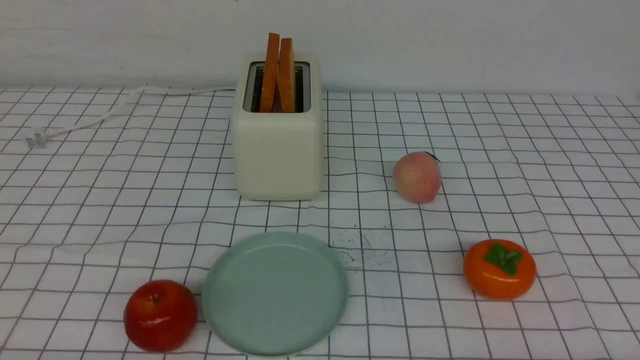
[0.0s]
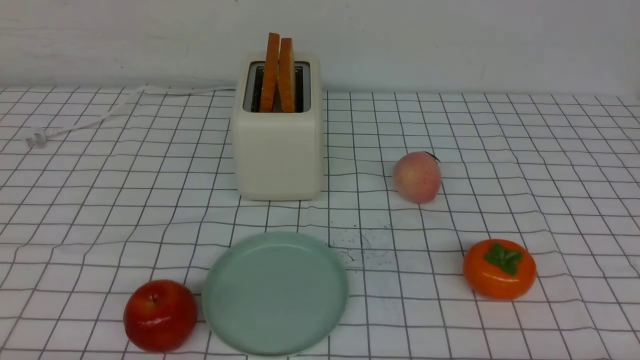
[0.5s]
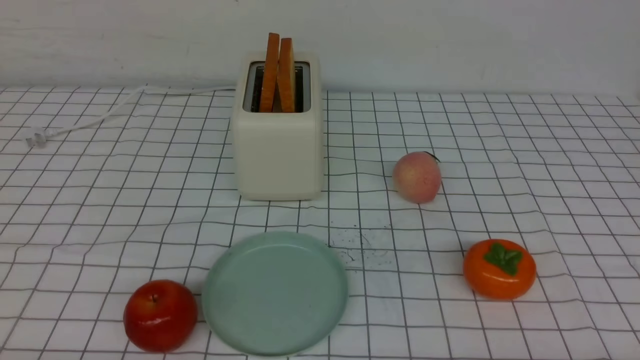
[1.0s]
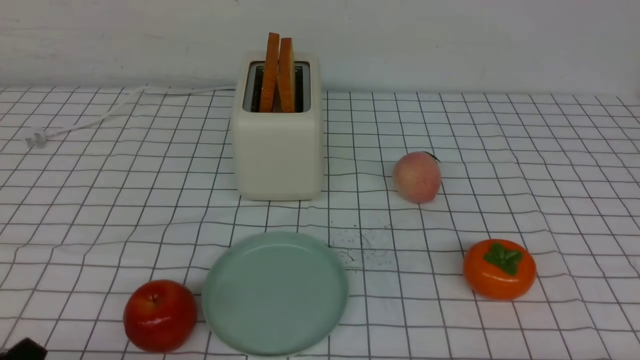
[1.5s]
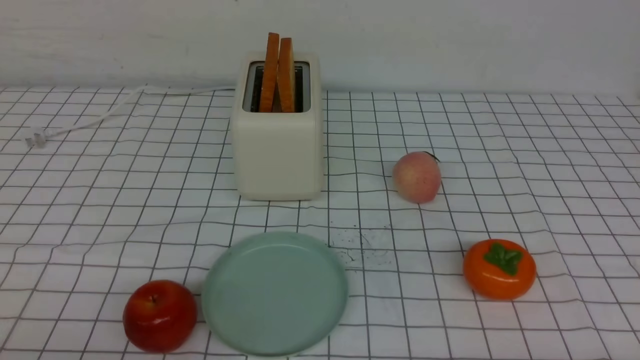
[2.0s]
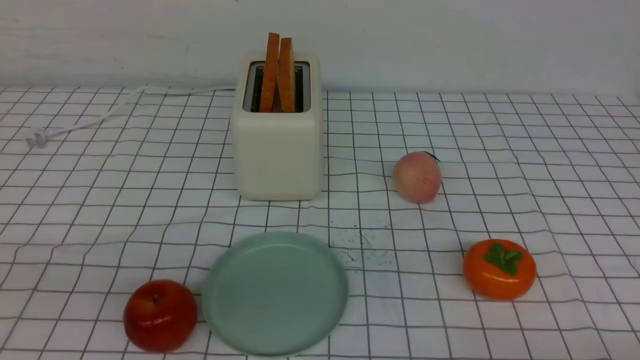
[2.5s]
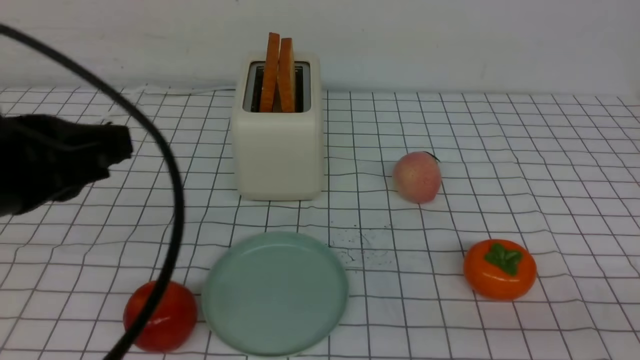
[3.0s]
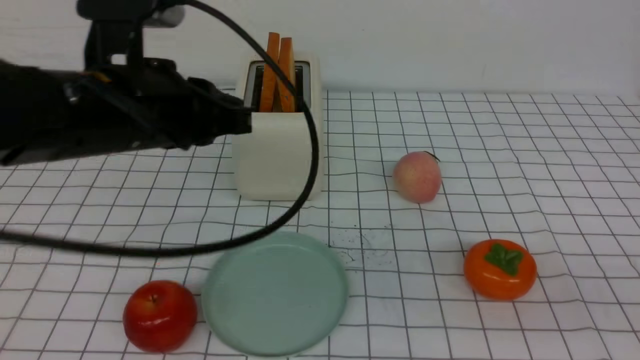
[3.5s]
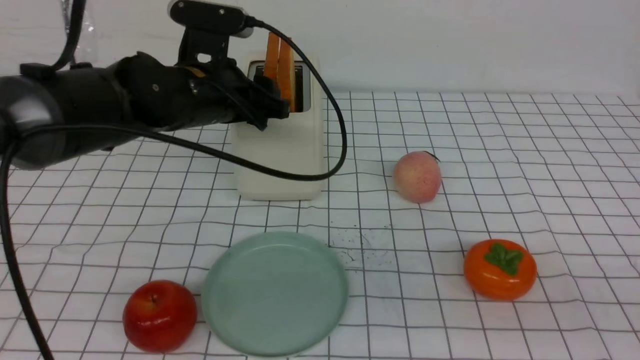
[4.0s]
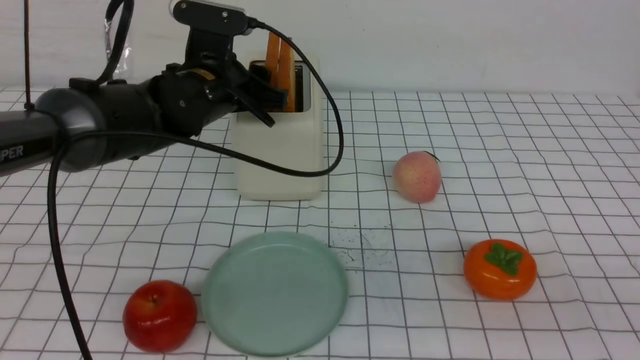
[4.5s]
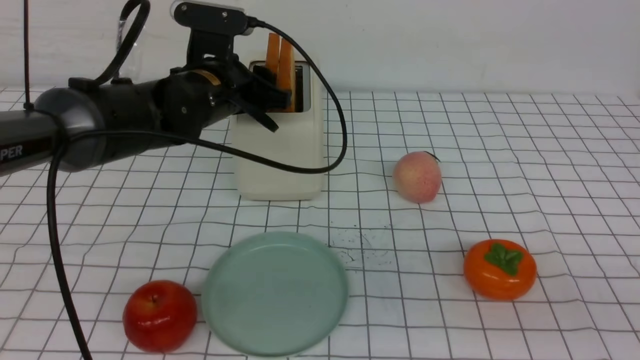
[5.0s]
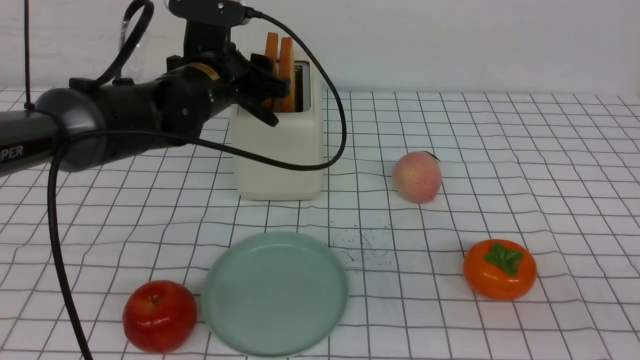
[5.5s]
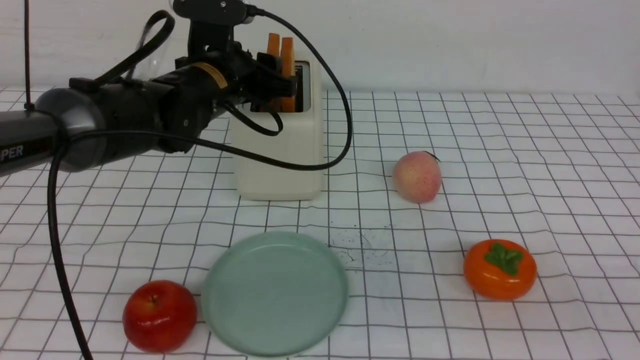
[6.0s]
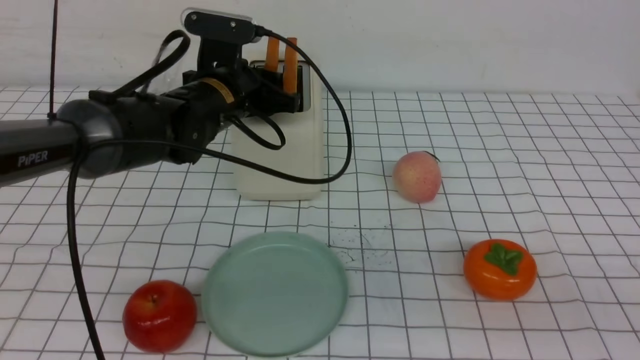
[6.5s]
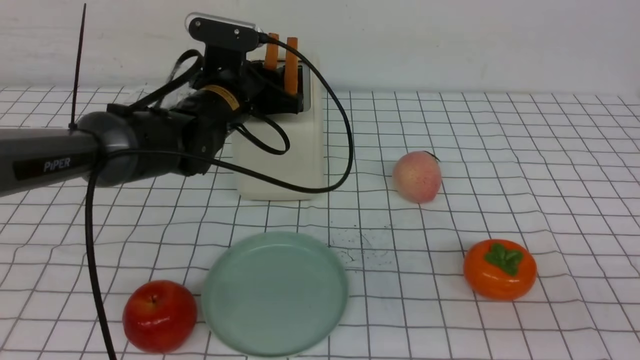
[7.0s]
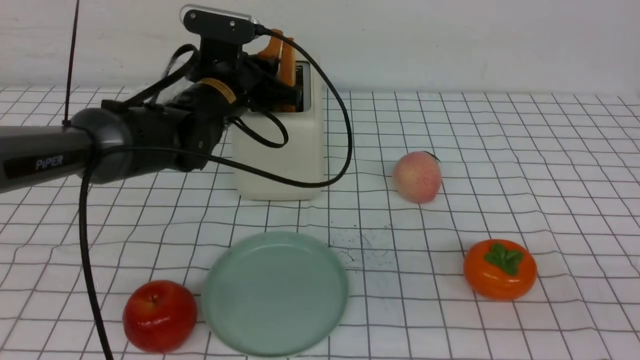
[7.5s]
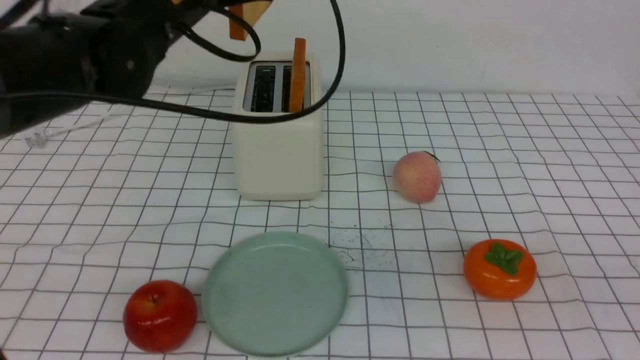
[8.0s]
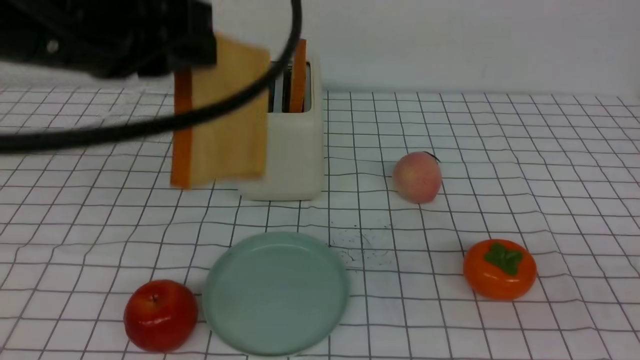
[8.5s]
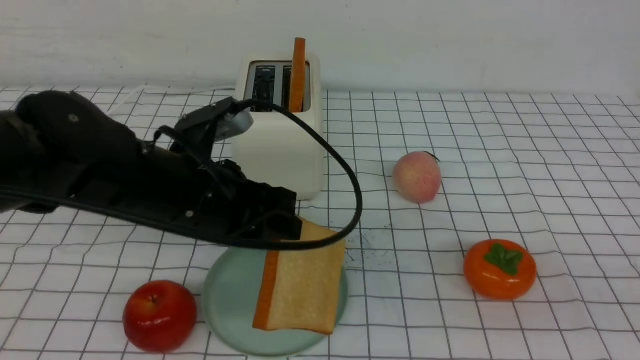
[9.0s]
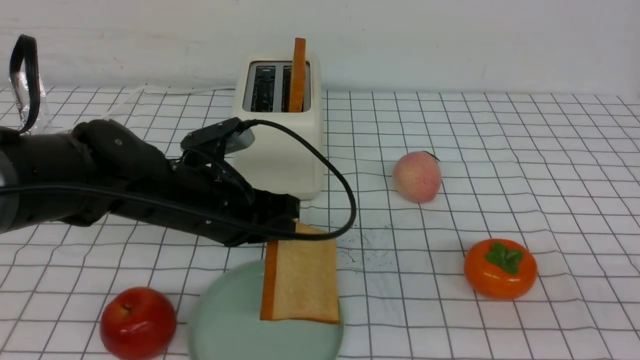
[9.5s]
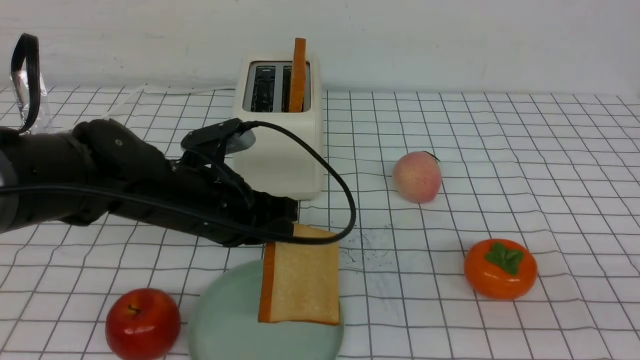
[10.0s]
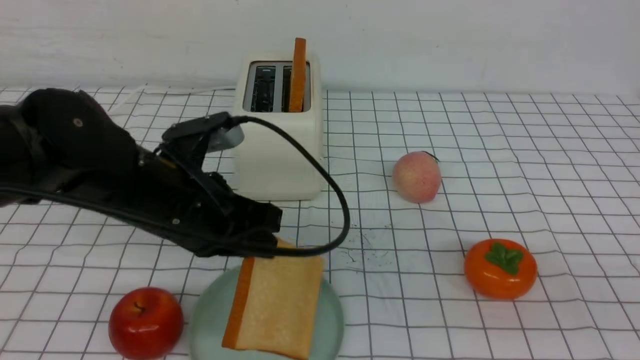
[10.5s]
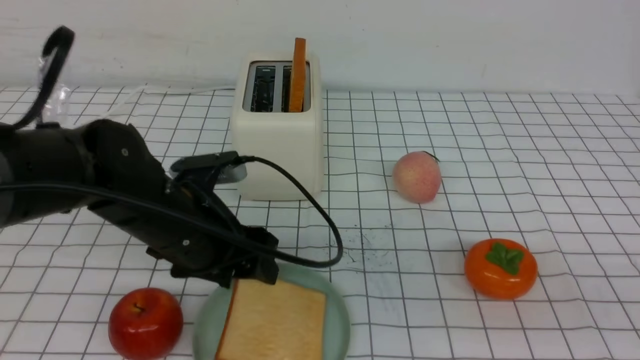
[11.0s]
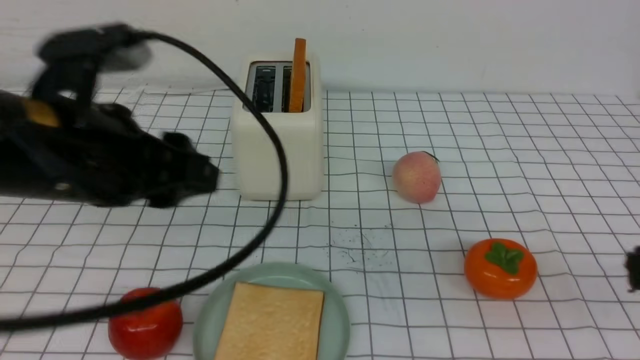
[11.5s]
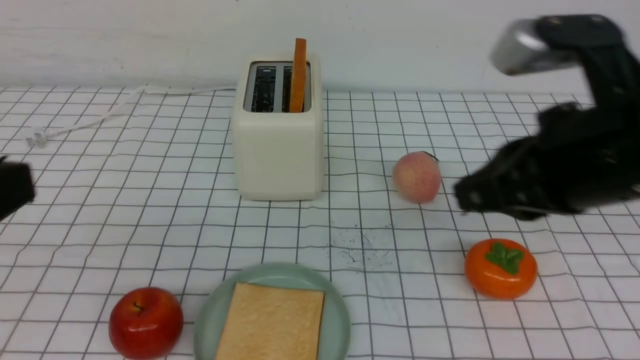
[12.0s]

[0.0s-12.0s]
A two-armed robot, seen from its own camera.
Task of the whole recording: take toasted bread from bread machine on white checkered table place on plate.
Step, 0.0s to 7.5s: use the left arm to take out a slice of bread.
Step, 8.0s to 11.0s: use the left arm to put a slice of bread into the empty plate.
2.0s to 4.0s: The right gripper moves upward, approximately 20 cm, and closes its fingers; the left gripper travels forward and to the right by about 35 cm, and opens.
4.0s to 6.0s: The grippers move only a little.
6.0s to 8.0s: The left gripper shifts approximately 15 cm upward and backward, and closes up.
8.0s to 10.0s: The left gripper is displaced downward by approximately 15 cm.
10.0s to 12.0s: The left gripper moves backward, upward and to the left, approximately 30 cm, and opens, then closes once more; the right gripper travels forward and to the left by approximately 20 cm.

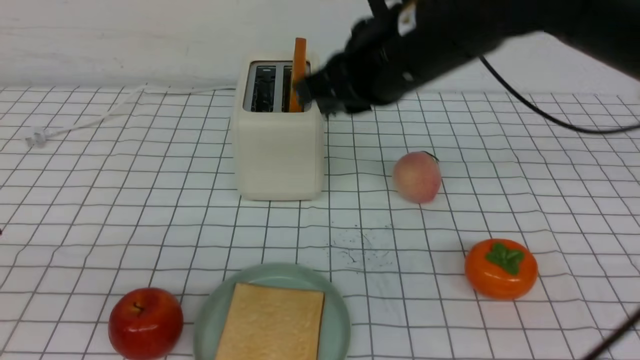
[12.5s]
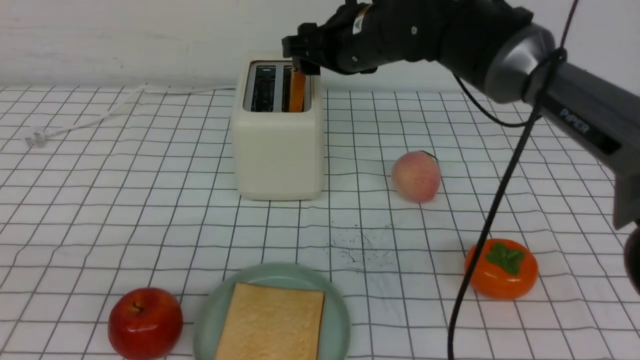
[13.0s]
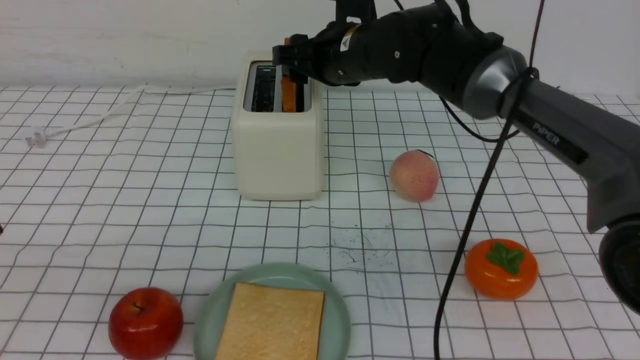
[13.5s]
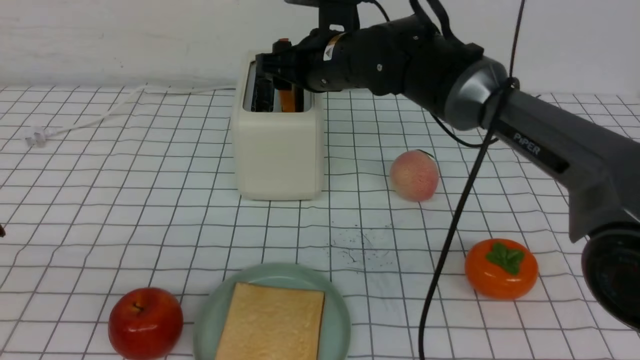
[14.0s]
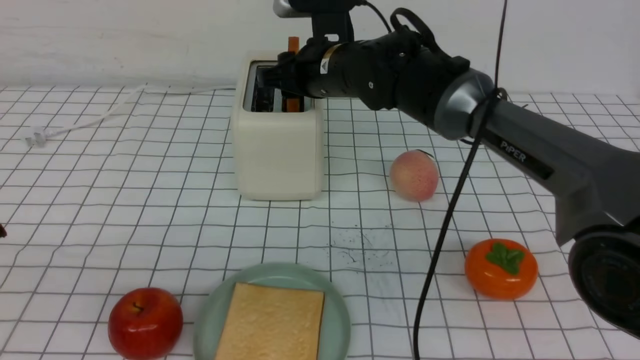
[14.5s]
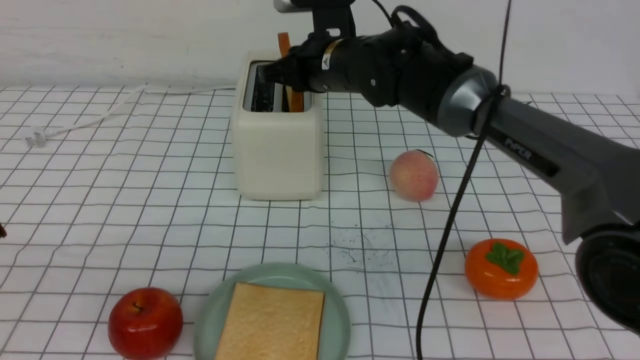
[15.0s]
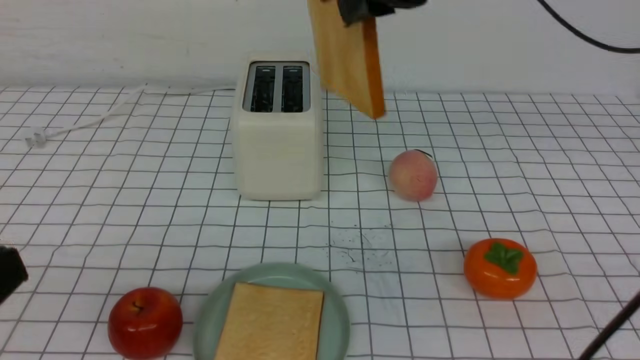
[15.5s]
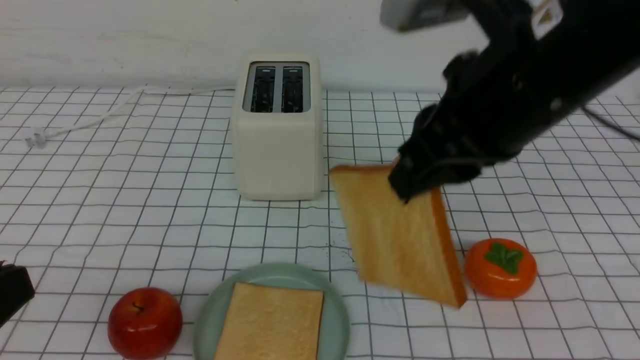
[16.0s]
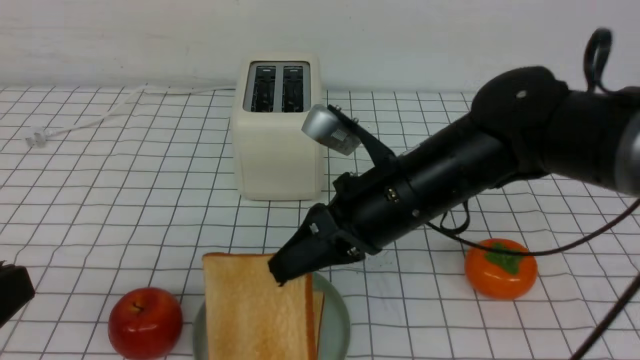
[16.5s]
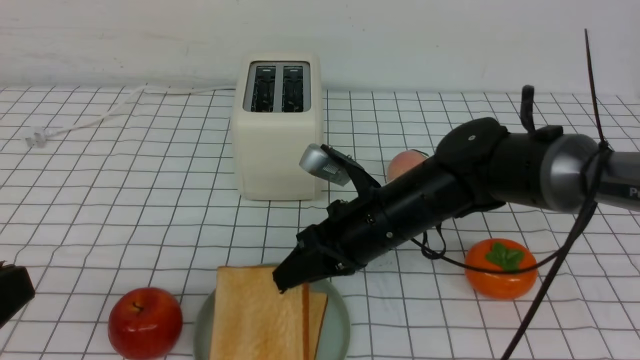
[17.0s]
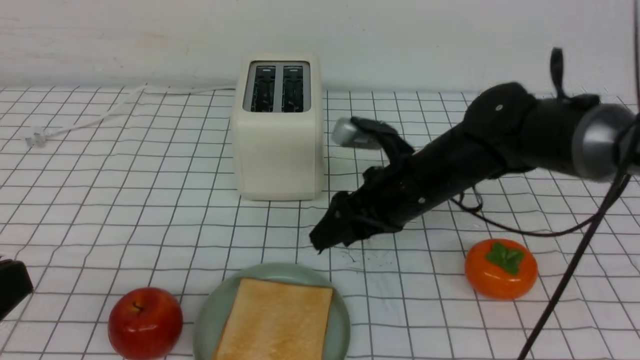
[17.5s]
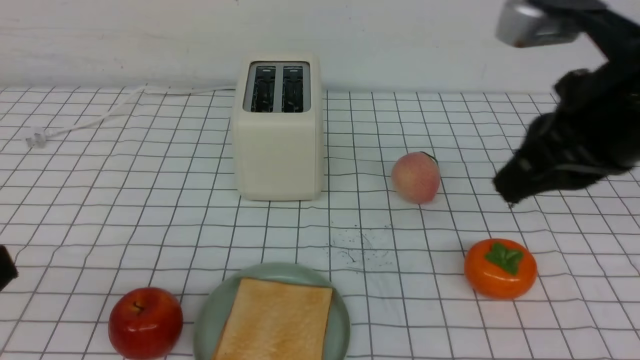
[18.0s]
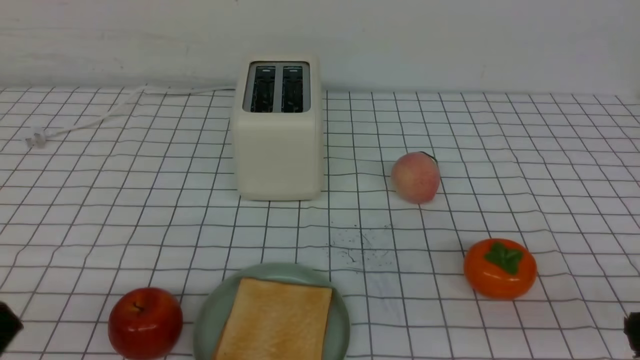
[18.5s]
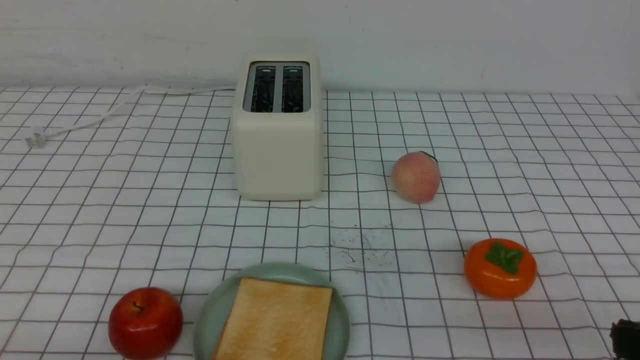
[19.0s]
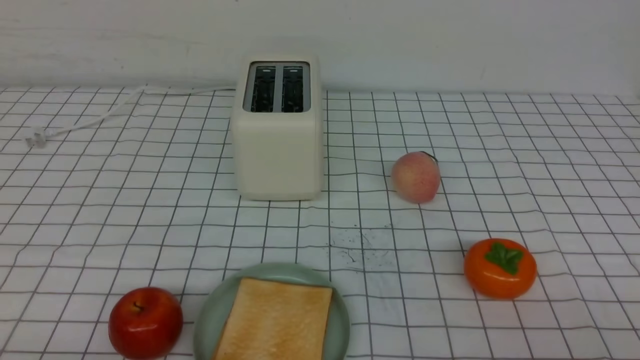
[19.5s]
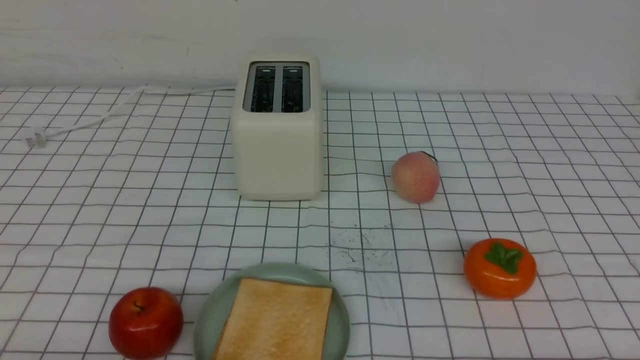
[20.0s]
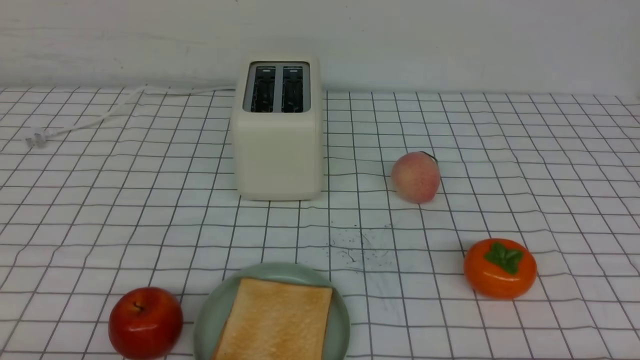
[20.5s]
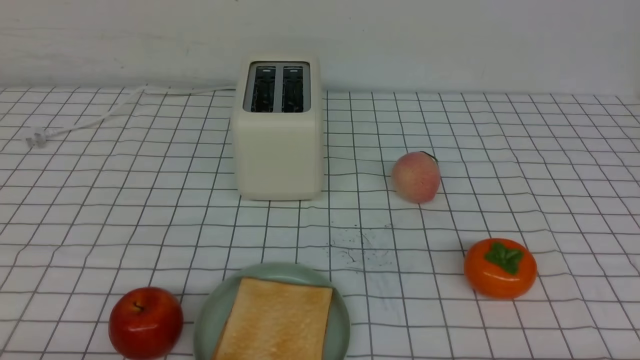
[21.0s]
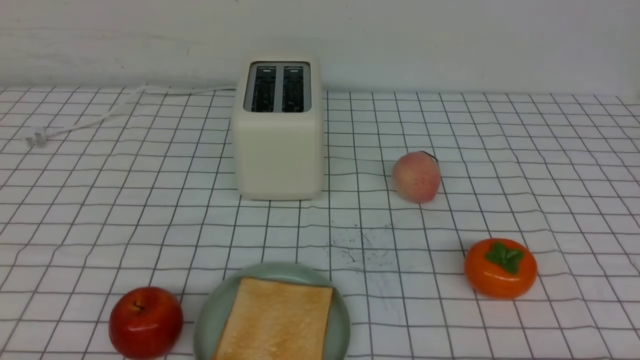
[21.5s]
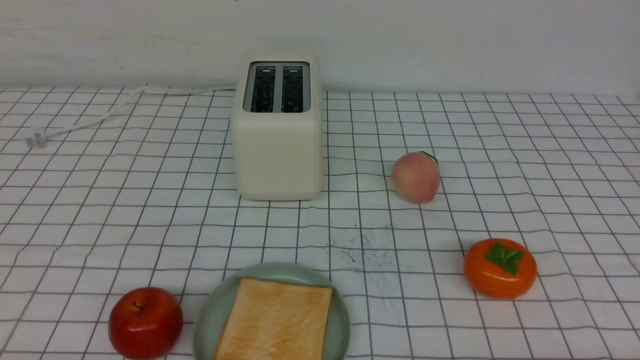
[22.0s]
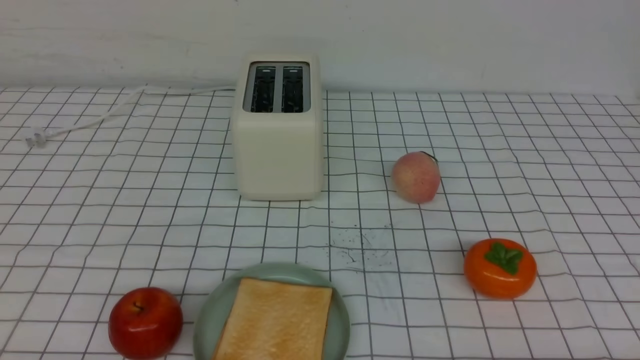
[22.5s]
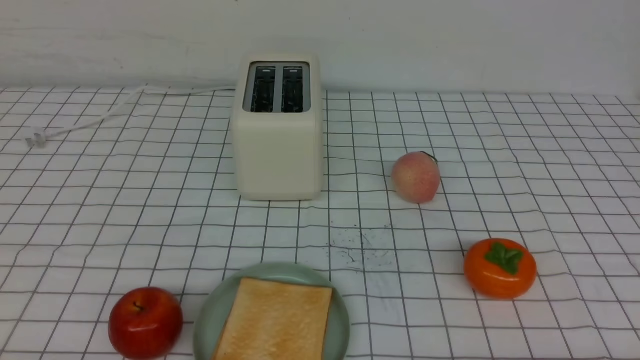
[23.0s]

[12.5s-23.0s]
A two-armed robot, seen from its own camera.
Task of the whole recording: take toasted bread from bread machine on white checkered table place on plate.
Step, 12.5s to 15.0s: use the right arm to take out a slice of bread.
Step, 15.5s to 17.0s: use the right arm to put a slice of bread into the plate.
12.5s to 14.5s: The right gripper travels forward and downward by roughly 15 cm, and opens.
14.5s to 16.5s: The right gripper shifts about 20 cm backward, and closes up.
16.5s to 19.0s: The left gripper shifts some 10 cm downward, while the right gripper moves backward and to the right, roughly 30 cm, and opens, then closes again.
19.0s to 21.0s: The right gripper goes approximately 15 cm downward.
